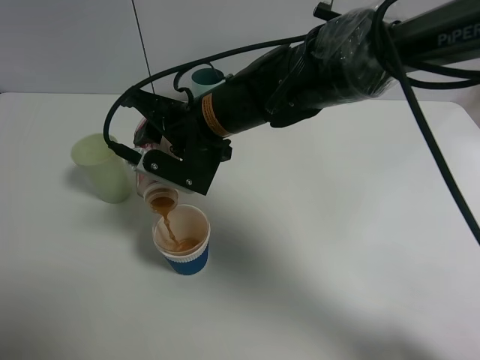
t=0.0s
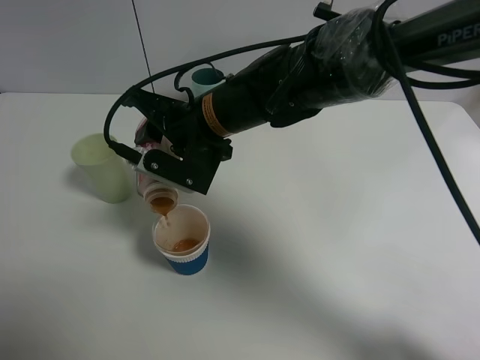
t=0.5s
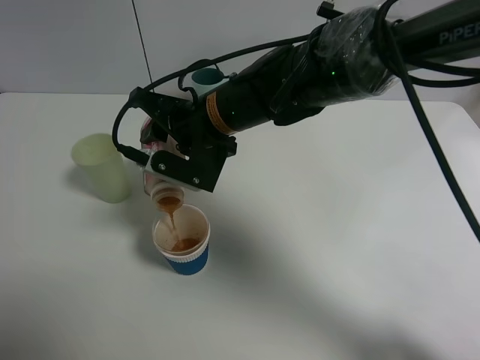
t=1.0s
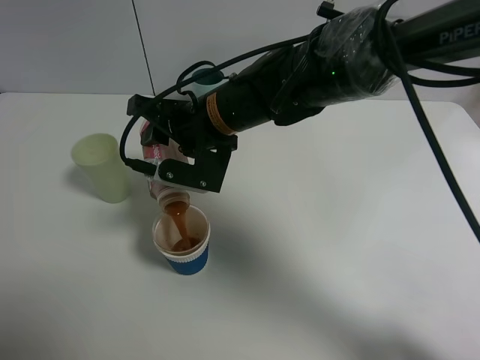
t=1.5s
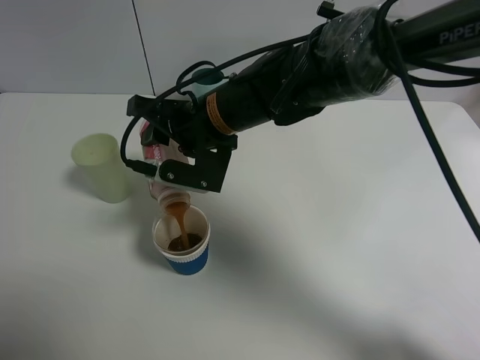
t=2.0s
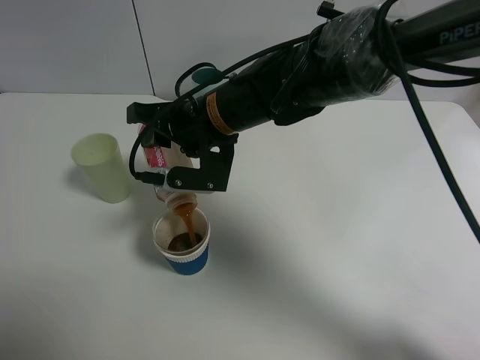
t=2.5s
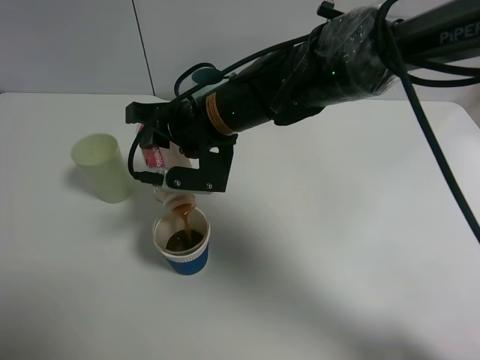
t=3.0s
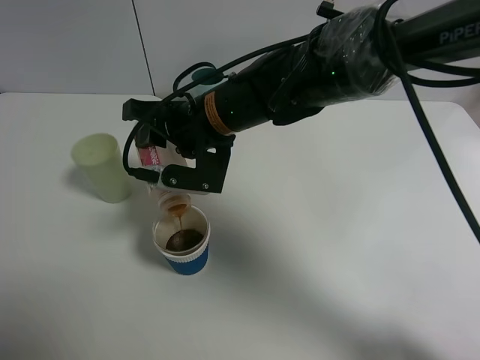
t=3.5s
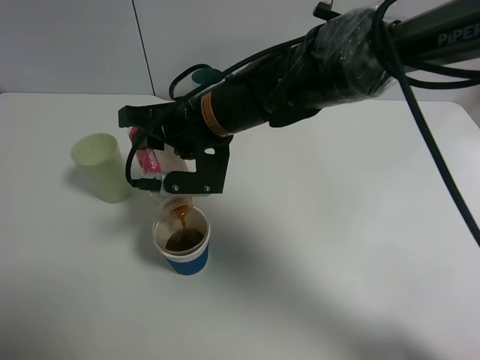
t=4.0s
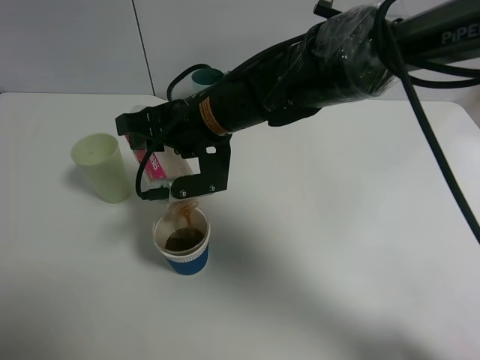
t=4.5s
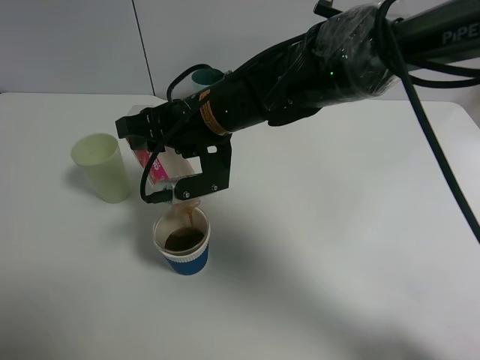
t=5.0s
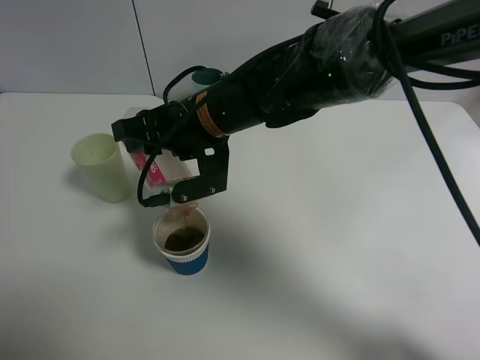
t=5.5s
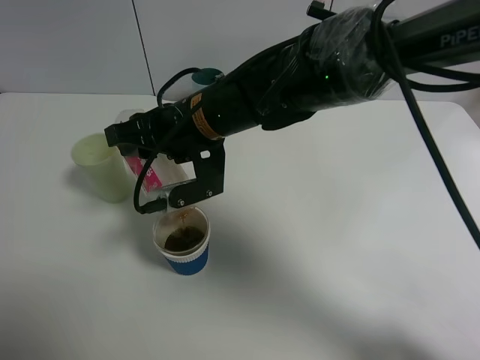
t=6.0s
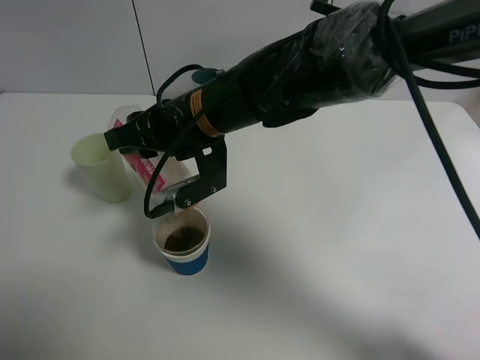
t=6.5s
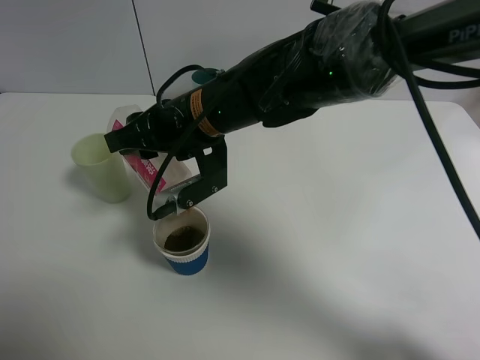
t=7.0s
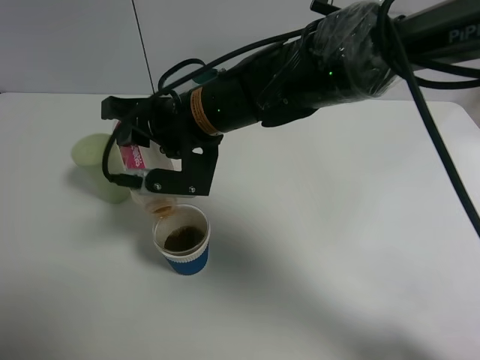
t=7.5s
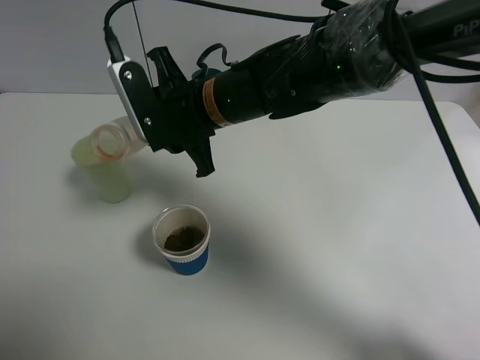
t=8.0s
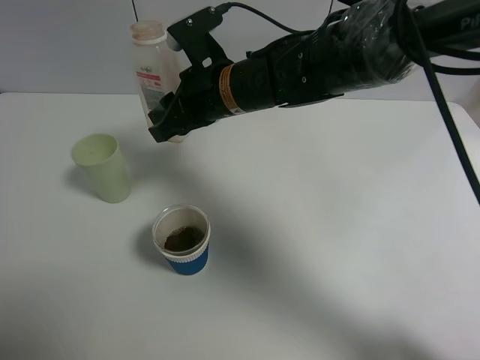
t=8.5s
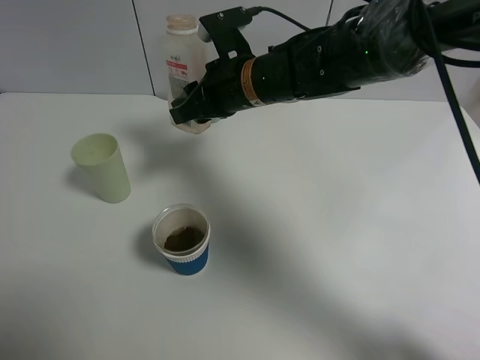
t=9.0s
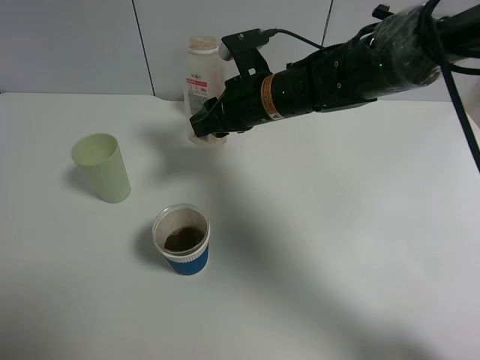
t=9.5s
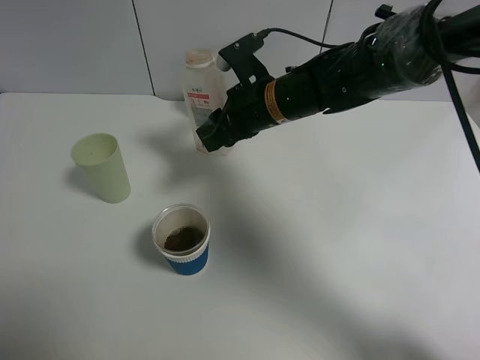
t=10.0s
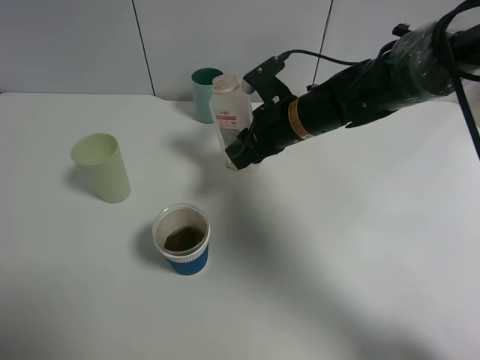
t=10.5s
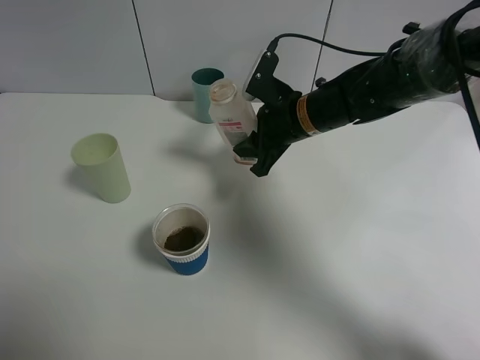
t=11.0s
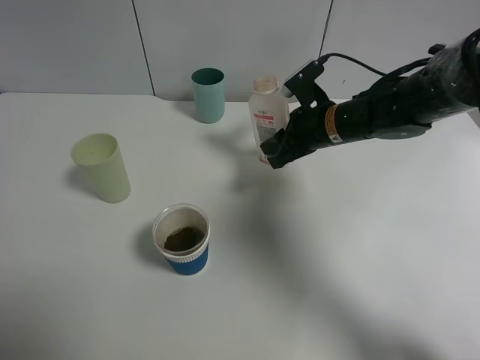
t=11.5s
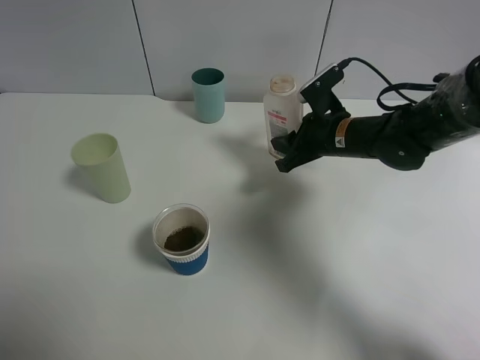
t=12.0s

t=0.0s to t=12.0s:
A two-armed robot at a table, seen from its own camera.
Task of the whole recording: use a gripper to hold the bottle of the drink and pour it into a random cup.
Step, t=0.0s to t=7.5s: Pour the cranberry juice into the paper cup with the right gripper.
t=0.0s to t=4.0s: There are only small adjustments of the grippers.
t=4.0s to t=6.0s: The grippers stay close to where they were, moving slightly.
t=8.0s to t=10.0s: The right gripper shifts about 5 cm to the right.
t=10.0s to t=12.0s: The right gripper heads to the right and downward, covering some 10 cm.

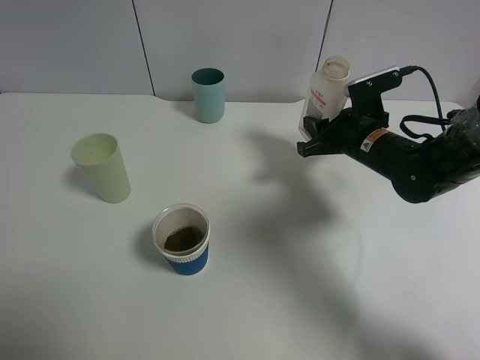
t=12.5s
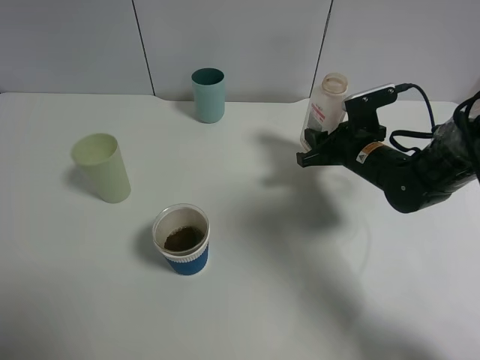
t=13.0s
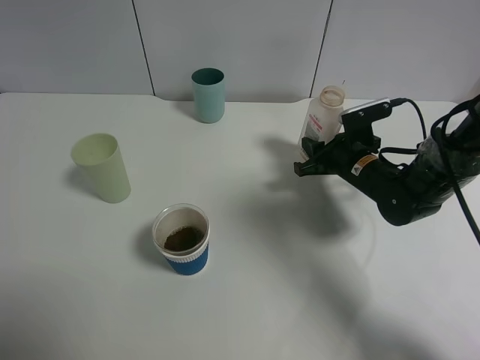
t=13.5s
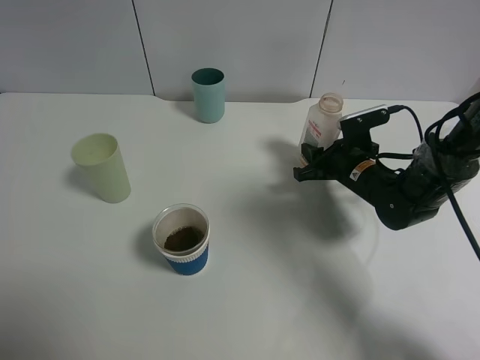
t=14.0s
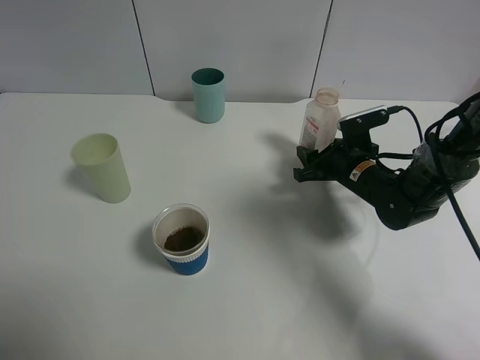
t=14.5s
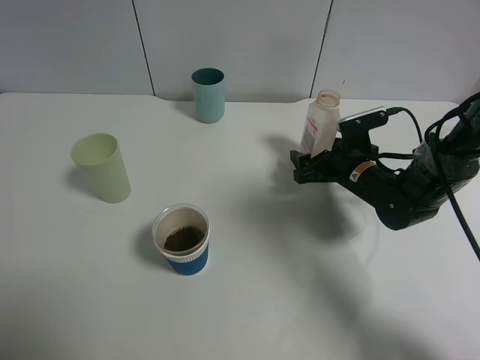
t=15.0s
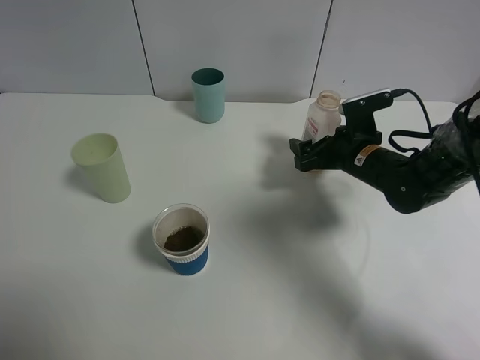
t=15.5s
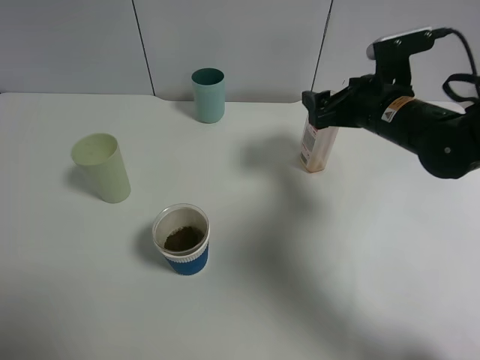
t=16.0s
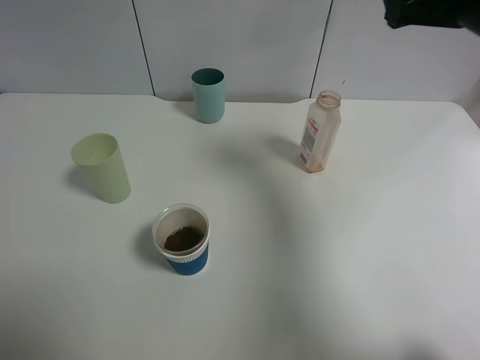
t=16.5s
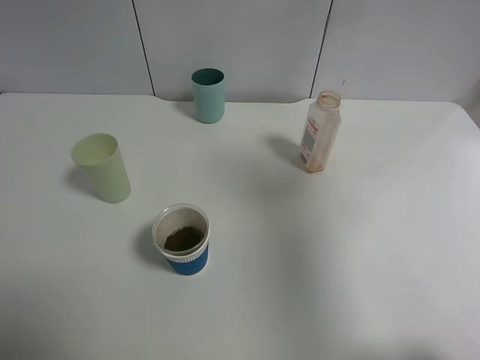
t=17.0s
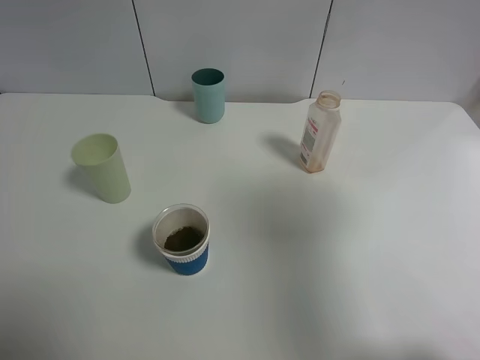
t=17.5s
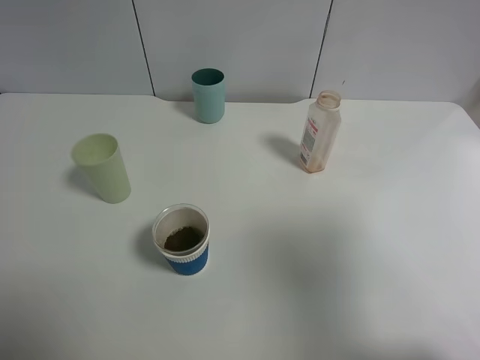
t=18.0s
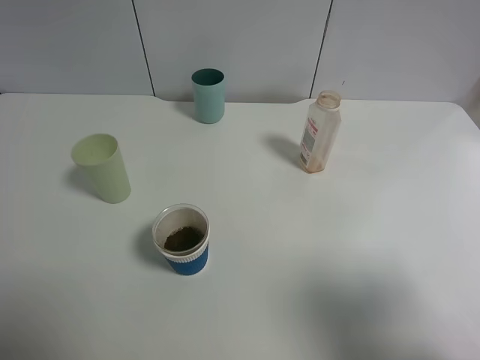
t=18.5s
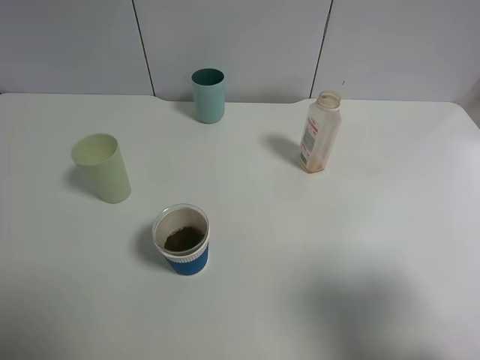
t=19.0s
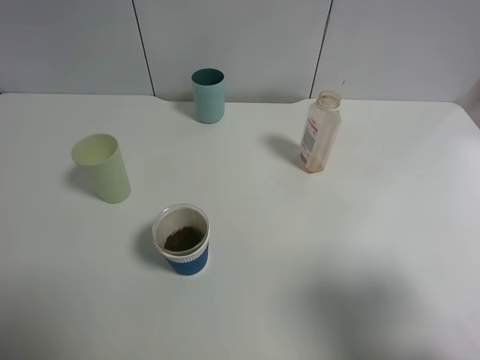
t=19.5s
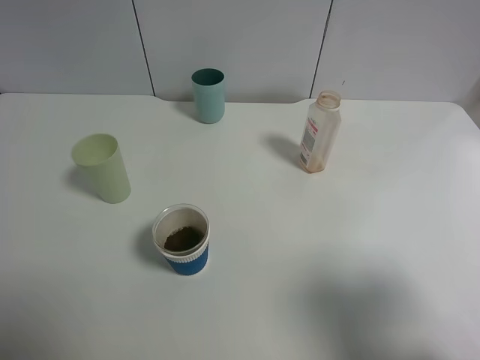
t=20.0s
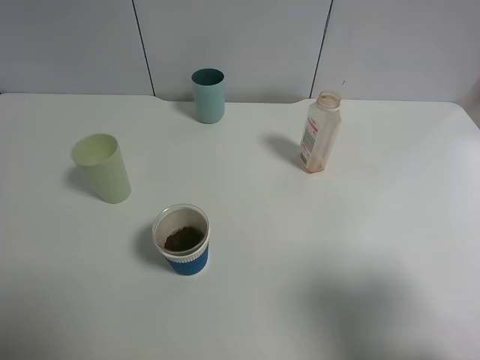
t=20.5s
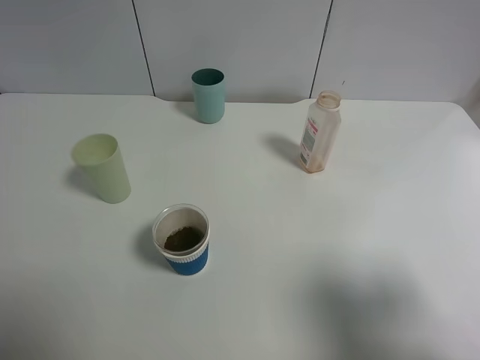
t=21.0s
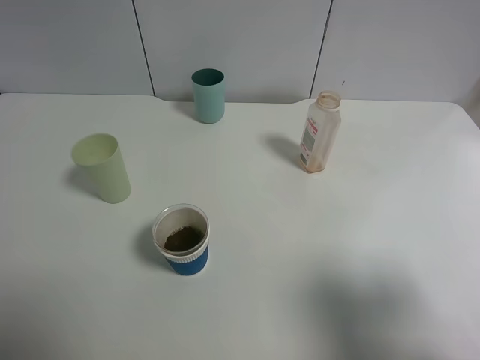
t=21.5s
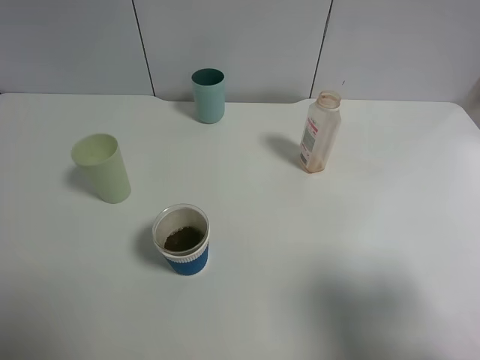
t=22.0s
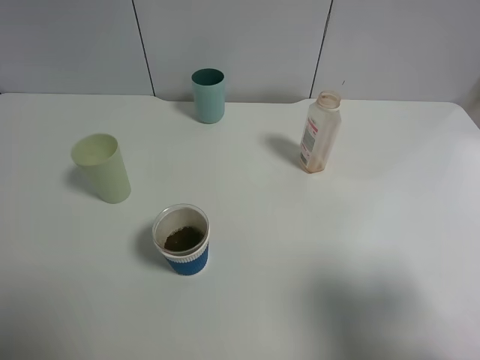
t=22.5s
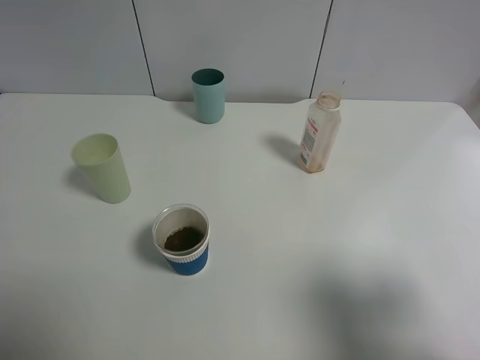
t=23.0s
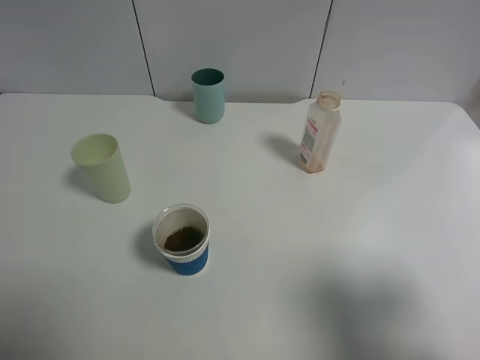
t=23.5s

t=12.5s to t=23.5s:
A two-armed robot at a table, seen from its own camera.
Task of the whole recording: use a gripper to hold the bottle of the drink and pour it into a random cup.
Step, t=12.5s to t=15.5s: Place the cranberry juice bottle on the table with the right gripper.
t=12.5s to t=14.5s: The right gripper is displaced downward by roughly 5 cm, and opens up.
t=14.5s to t=16.0s: The right gripper heads upward, covering about 15 cm, and opens its fingers.
t=16.0s to t=18.0s: The right gripper is displaced backward and upward by approximately 30 cm.
t=18.0s to t=20.0s: The right gripper is displaced downward by approximately 5 cm.
t=21.5s to t=23.5s: The two grippers keep their place.

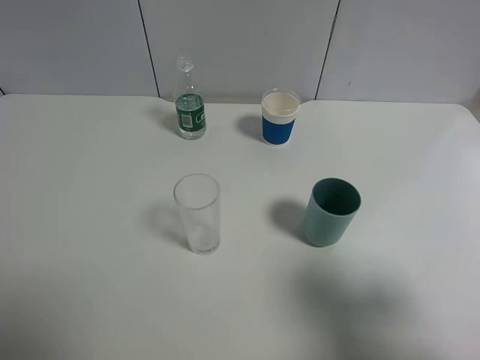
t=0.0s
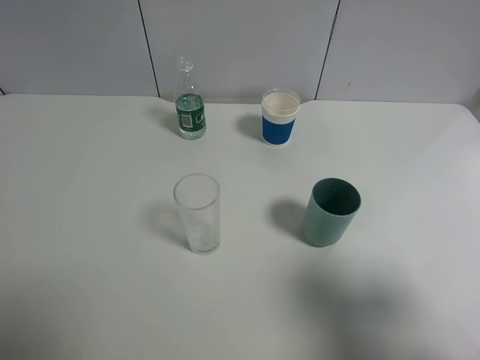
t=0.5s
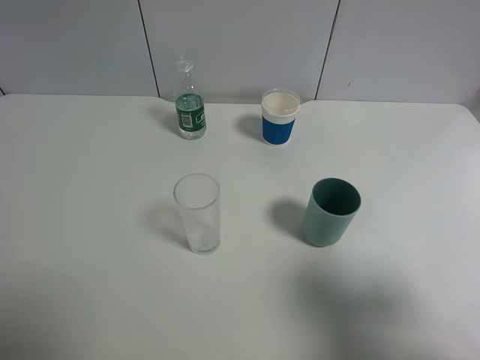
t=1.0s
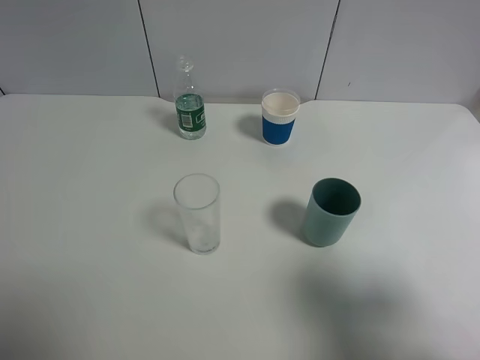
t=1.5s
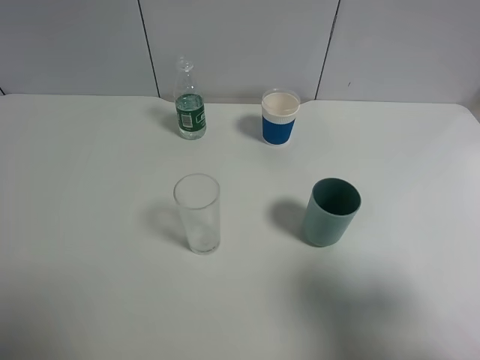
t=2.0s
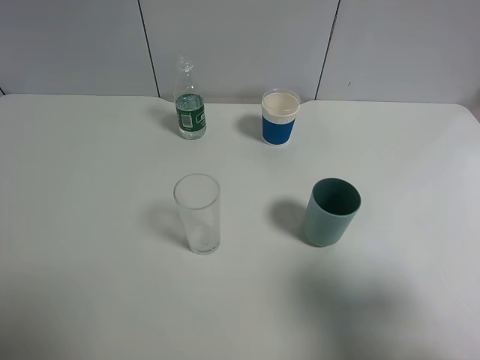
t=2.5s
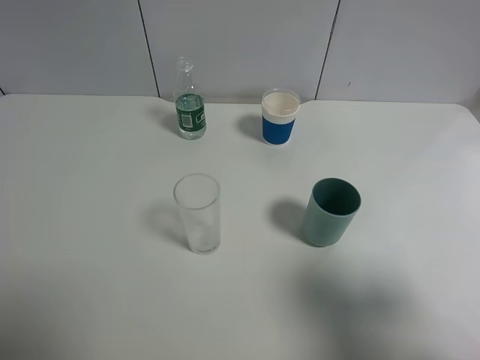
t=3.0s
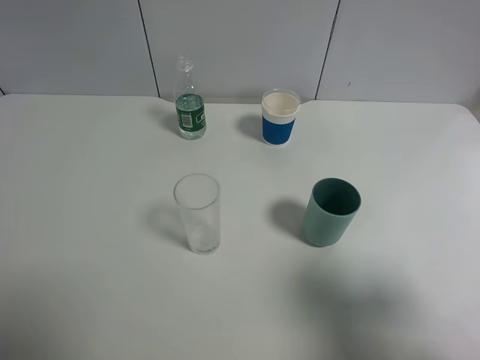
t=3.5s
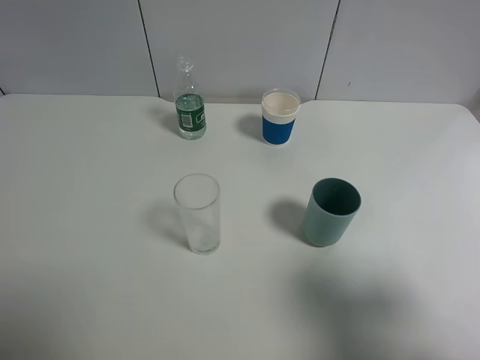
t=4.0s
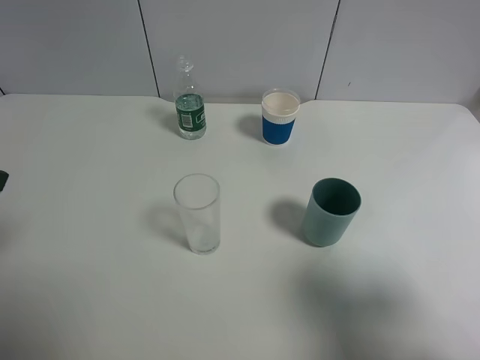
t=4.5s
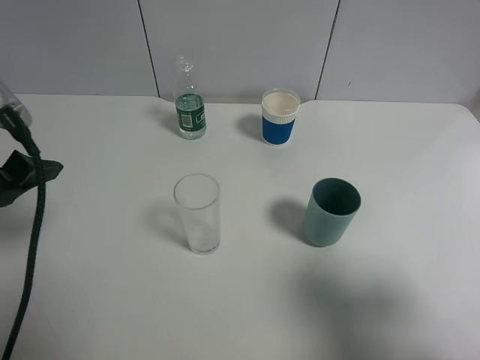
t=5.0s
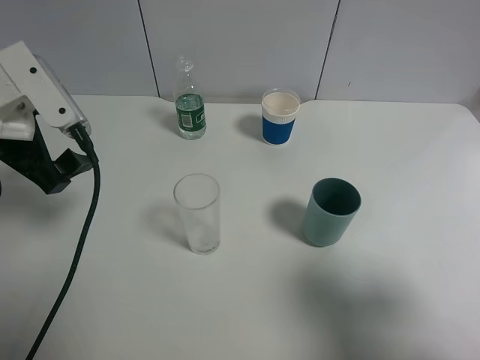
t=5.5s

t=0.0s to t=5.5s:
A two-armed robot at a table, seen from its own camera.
Task of the whole recording: use a gripper to hold the bottle of the drink and pour it into a random cup.
t=0.0s to t=2.0s: Both grippers stay about where they are.
t=3.5s to t=5.5s: The left gripper moves forward, some 20 cm.
